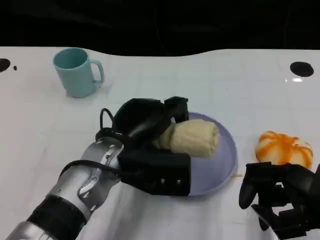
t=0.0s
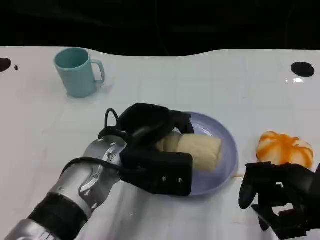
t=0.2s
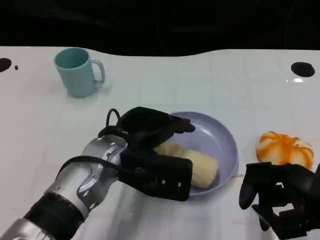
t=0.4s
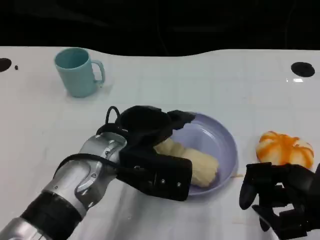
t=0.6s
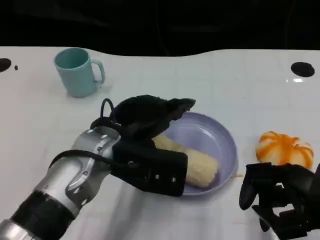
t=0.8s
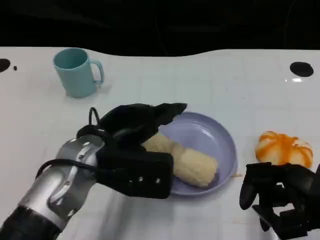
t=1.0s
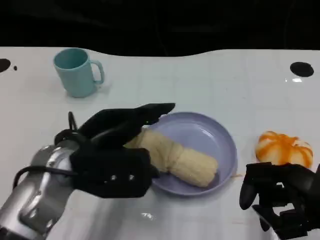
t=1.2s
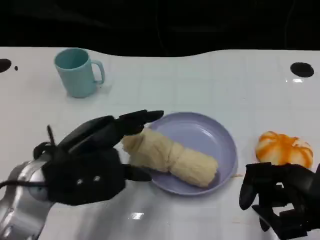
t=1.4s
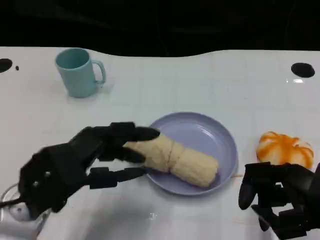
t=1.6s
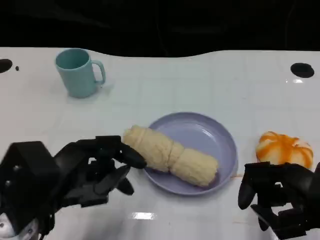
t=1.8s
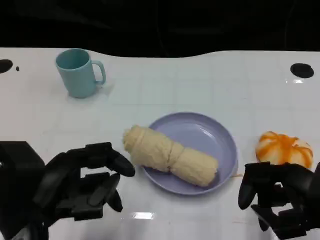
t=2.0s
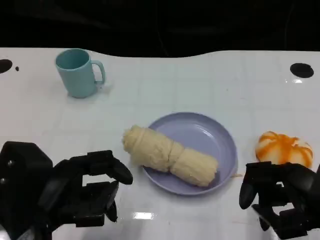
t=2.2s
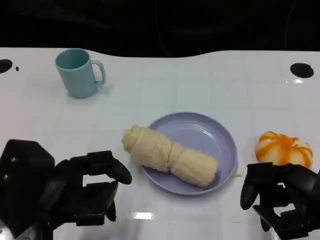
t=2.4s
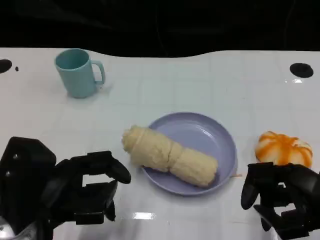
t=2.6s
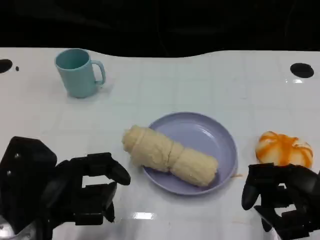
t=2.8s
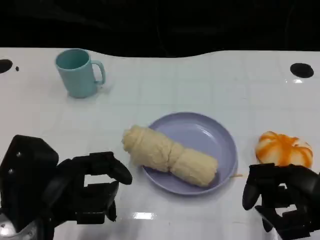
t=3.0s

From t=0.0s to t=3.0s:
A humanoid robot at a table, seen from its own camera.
Task of the whole recording: Grasp the towel on the left side of the plate with the left hand and place it into the plate.
From t=0.0s to t=1.6s: The left hand travels to the left and backward by approximately 15 cm.

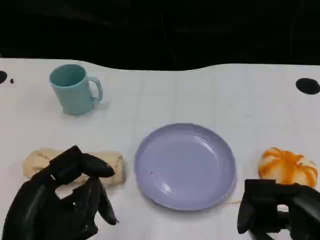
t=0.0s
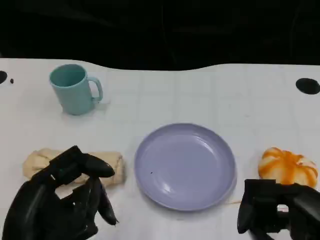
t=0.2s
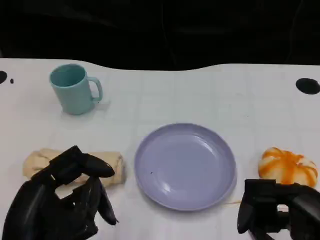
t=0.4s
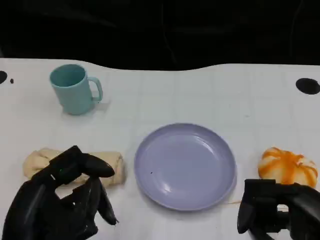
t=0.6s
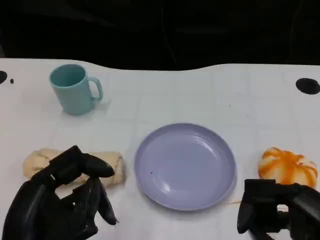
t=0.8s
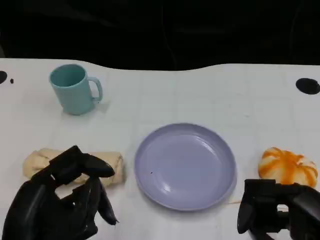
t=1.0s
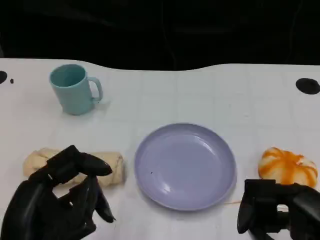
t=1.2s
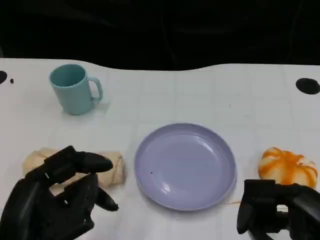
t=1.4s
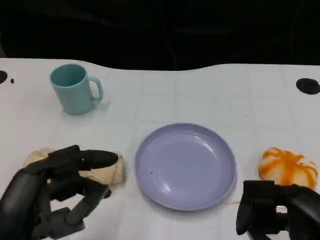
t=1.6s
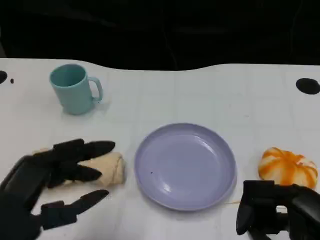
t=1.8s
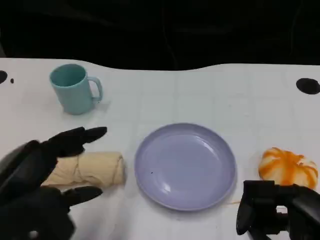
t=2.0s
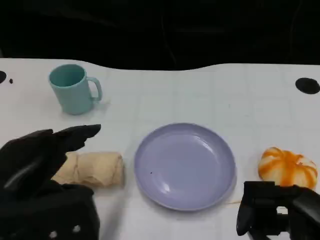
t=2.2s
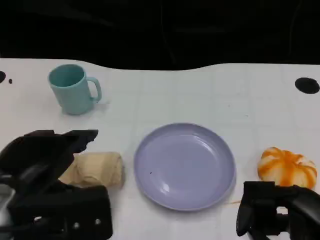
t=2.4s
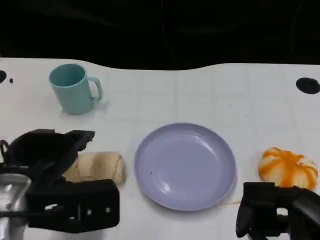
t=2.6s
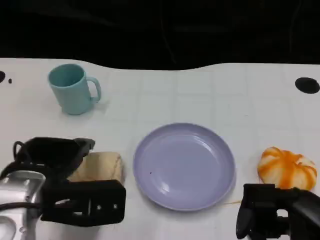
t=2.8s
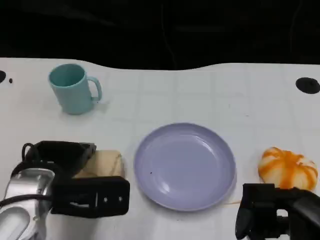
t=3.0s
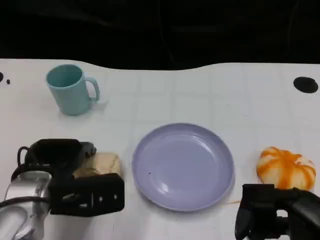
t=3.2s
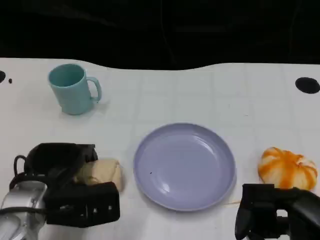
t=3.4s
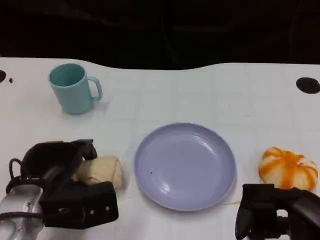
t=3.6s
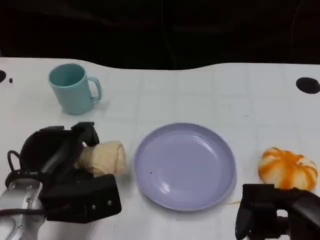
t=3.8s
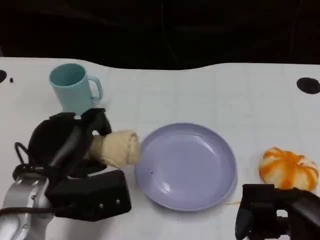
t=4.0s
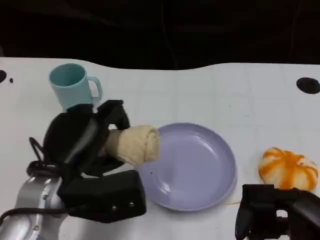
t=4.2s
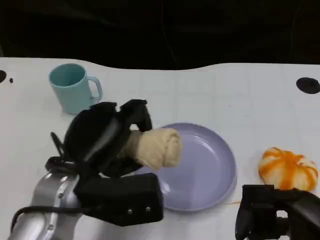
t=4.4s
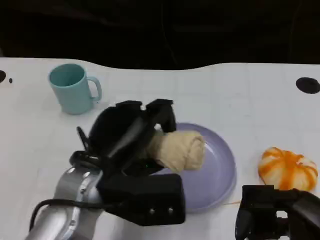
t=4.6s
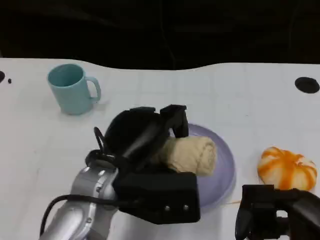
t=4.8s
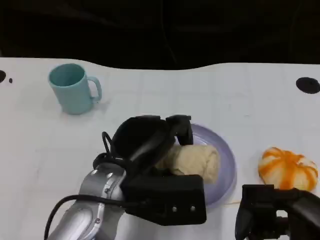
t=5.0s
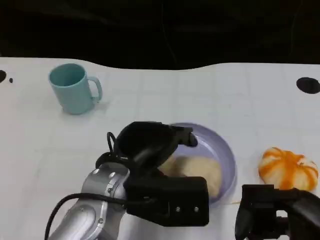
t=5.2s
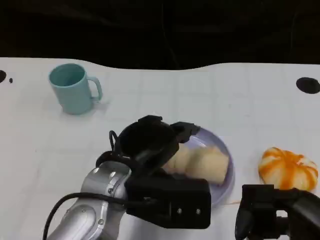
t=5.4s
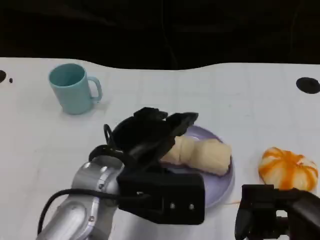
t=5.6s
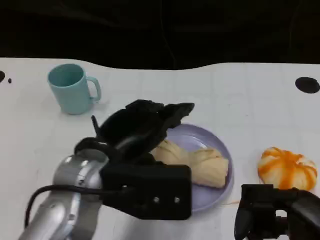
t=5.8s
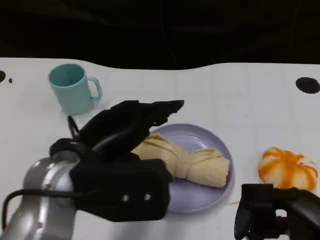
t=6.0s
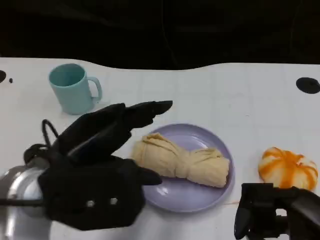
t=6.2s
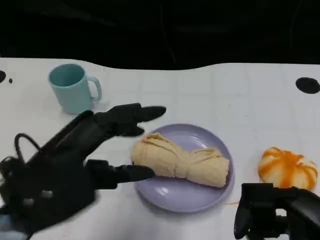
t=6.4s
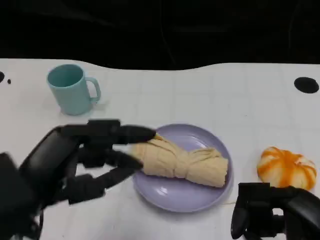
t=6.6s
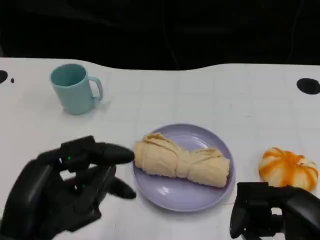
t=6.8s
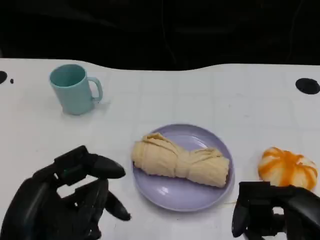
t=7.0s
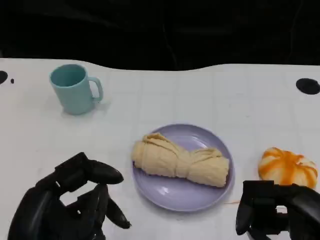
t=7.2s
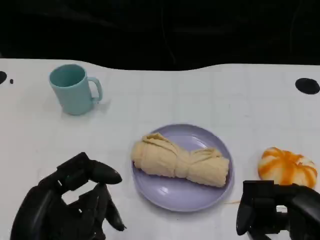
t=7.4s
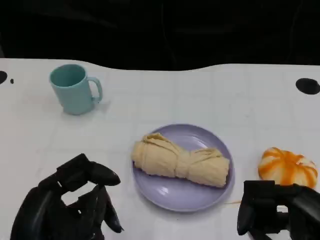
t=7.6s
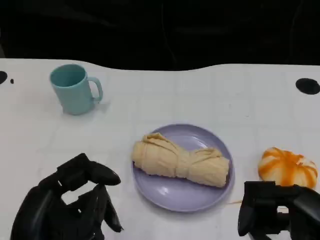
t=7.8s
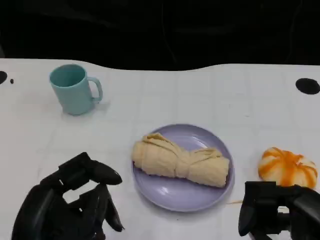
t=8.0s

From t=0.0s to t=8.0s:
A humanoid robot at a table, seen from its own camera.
Task of the whole recording: Grasp the towel on the left side of the plate with the left hand and place it into the plate.
From t=1.6s to t=3.2s: The left hand is displaced forward and downward by about 15 cm.
From t=3.2s to t=4.8s: The left hand travels to the right and upward by about 10 cm.
From t=4.8s to t=6.4s: The left hand is displaced to the left, upward and backward by about 10 cm.
From t=6.4s to t=8.0s: The left hand moves backward and downward, roughly 10 cm.

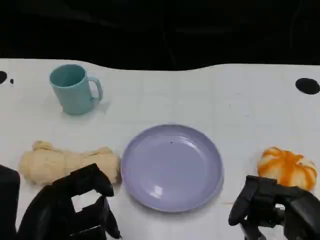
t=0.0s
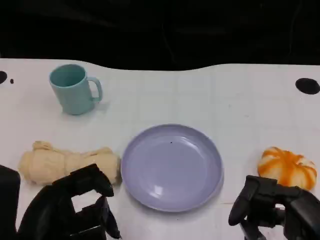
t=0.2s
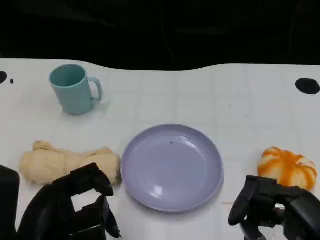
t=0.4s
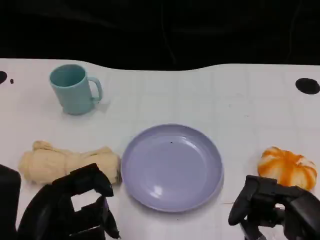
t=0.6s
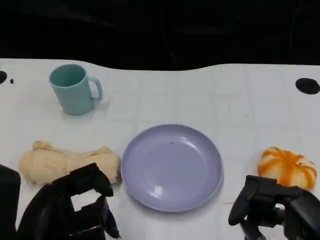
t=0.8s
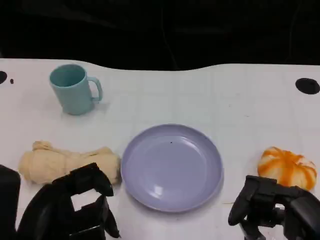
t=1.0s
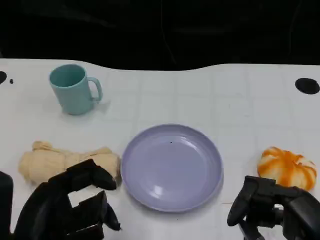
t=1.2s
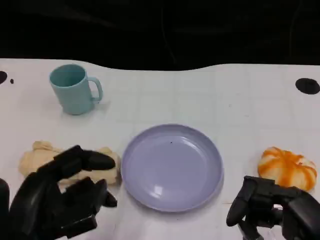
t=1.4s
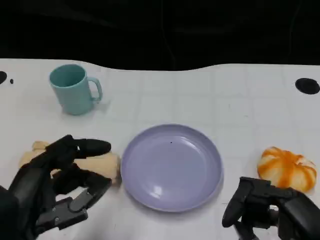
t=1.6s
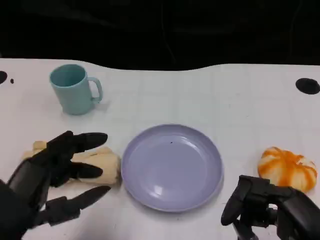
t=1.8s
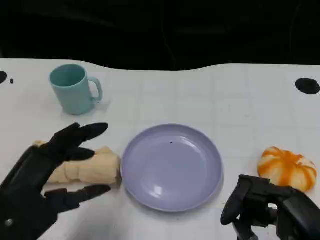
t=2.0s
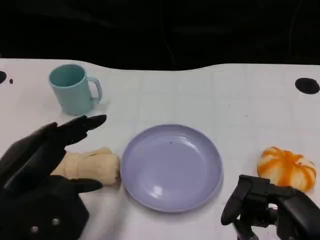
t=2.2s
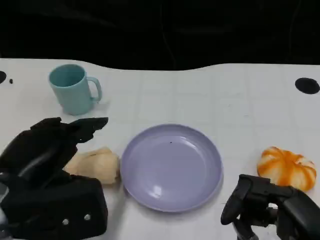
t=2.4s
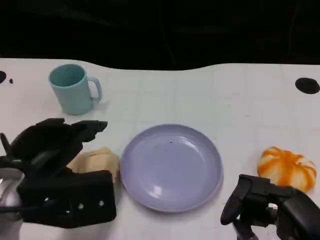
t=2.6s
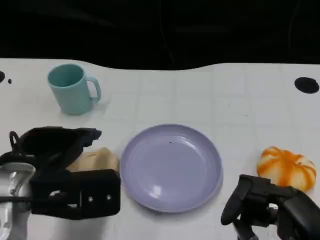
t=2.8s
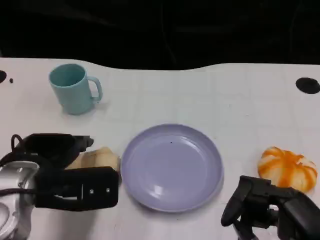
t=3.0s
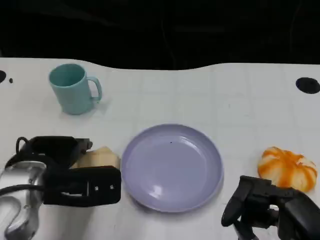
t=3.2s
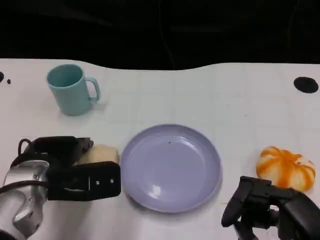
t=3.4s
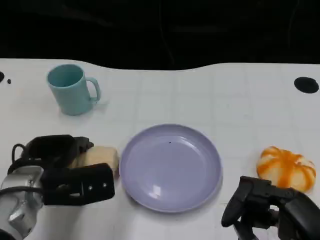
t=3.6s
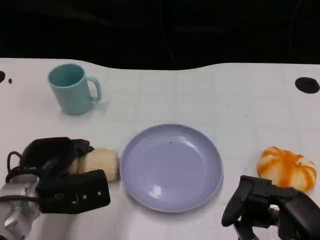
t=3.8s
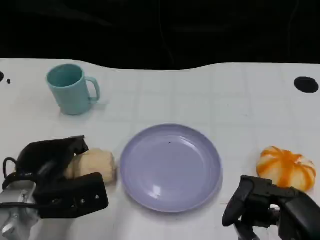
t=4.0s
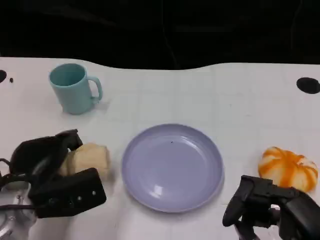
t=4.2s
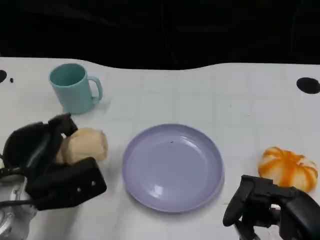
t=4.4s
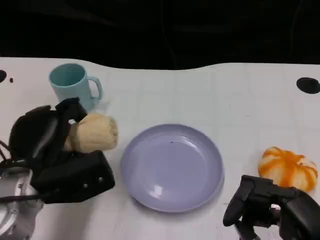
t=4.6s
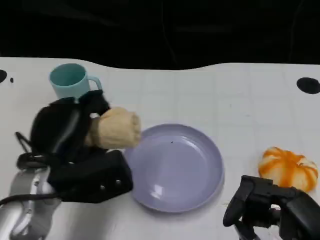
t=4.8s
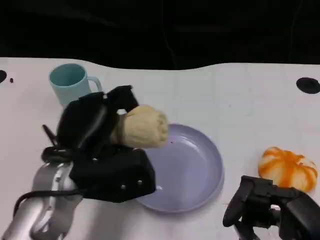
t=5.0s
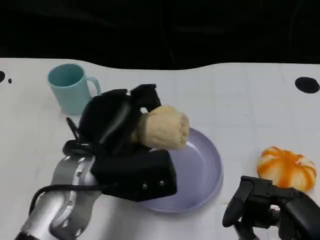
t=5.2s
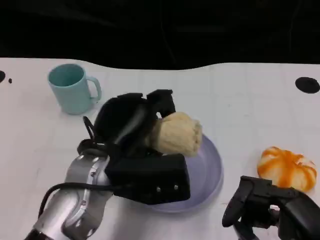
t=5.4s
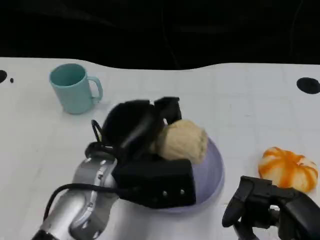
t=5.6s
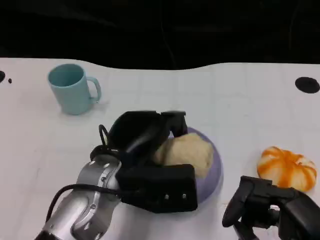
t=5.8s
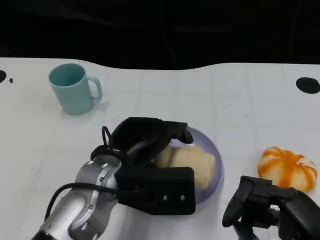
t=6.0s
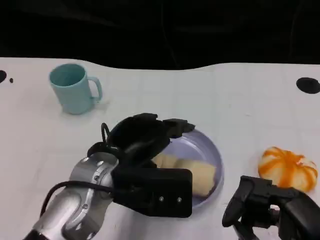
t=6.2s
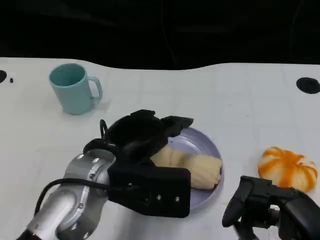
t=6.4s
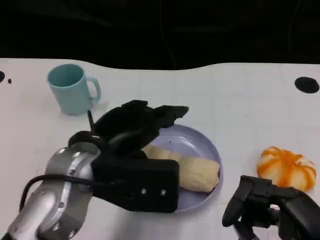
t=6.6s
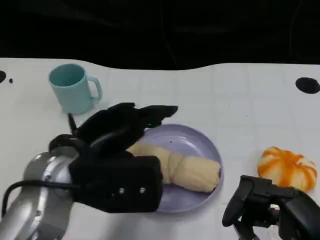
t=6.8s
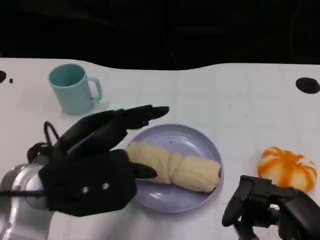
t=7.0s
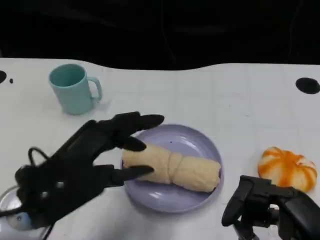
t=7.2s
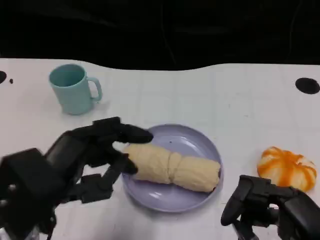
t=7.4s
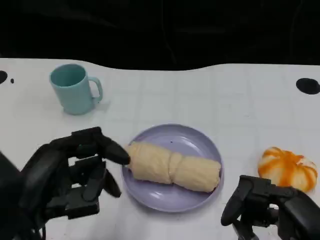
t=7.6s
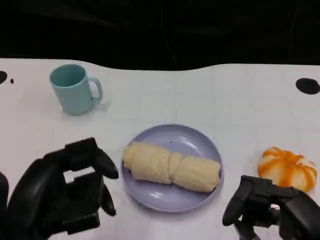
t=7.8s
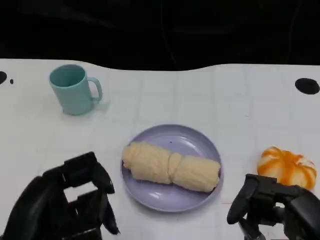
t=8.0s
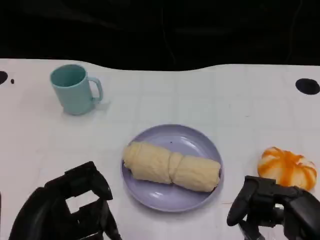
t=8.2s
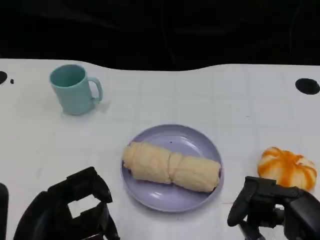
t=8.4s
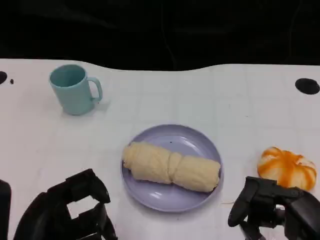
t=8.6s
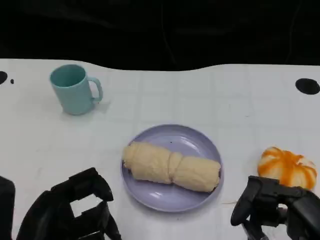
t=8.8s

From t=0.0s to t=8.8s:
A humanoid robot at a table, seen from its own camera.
Task of the whole recording: Grasp the towel on the left side of the plate with the left hand and place it into the plate.
From t=0.0s to t=1.4s: The hands move only a little.
From t=1.4s to t=3.0s: The left hand heads forward, covering about 10 cm.
From t=4.4s to t=5.8s: The left hand travels to the right by some 10 cm.
From t=5.8s to t=7.4s: The left hand heads to the left and backward, covering some 15 cm.
From t=7.4s to t=8.8s: The left hand moves some 5 cm.
